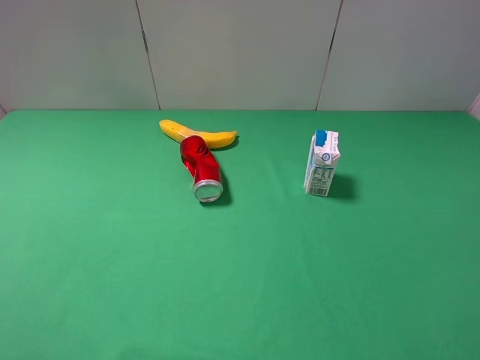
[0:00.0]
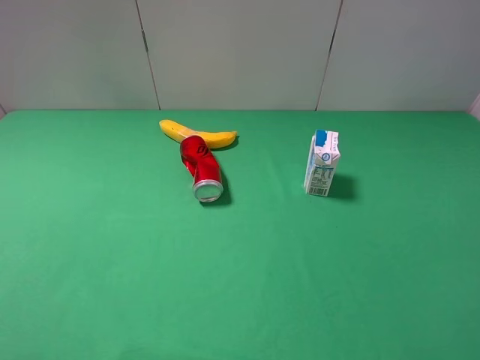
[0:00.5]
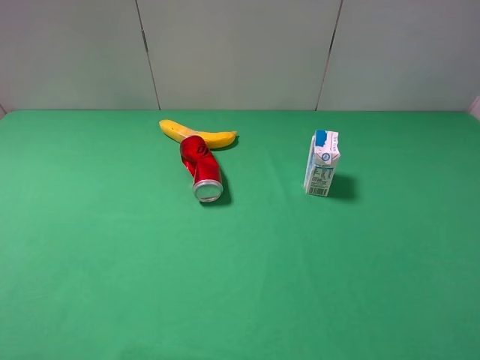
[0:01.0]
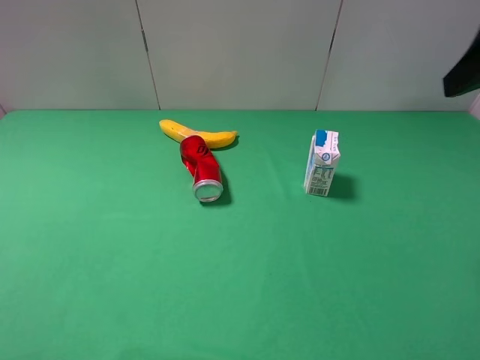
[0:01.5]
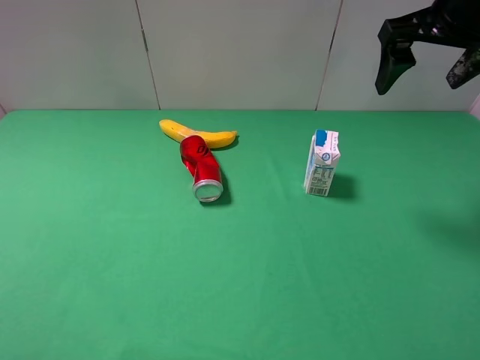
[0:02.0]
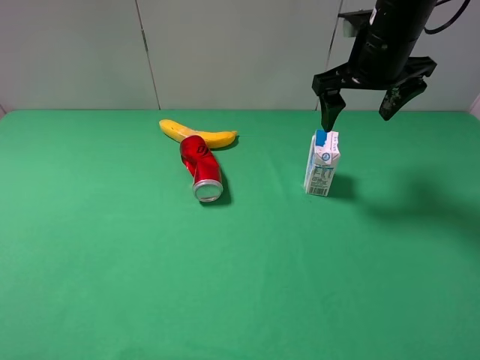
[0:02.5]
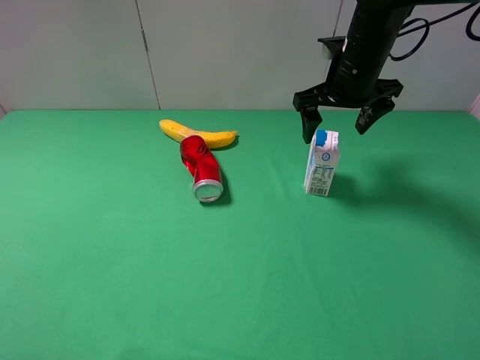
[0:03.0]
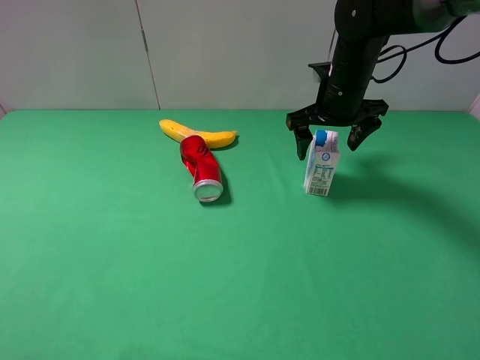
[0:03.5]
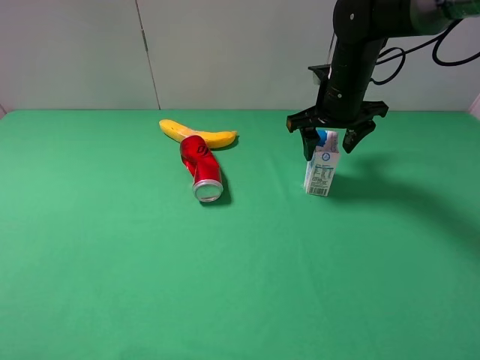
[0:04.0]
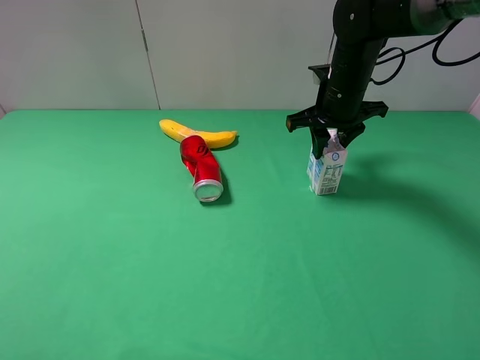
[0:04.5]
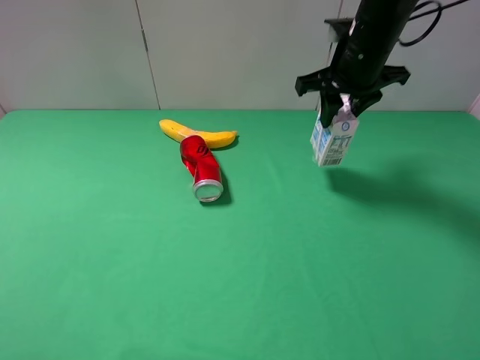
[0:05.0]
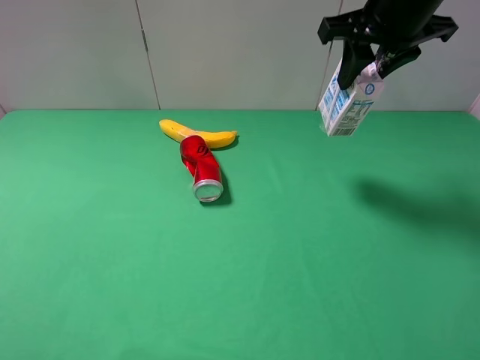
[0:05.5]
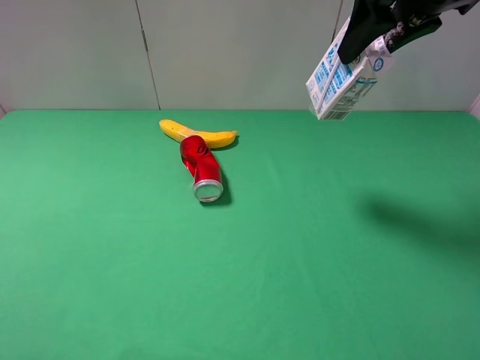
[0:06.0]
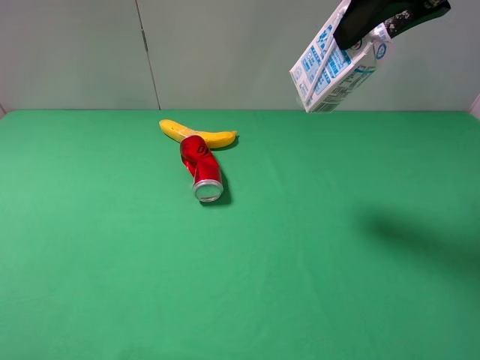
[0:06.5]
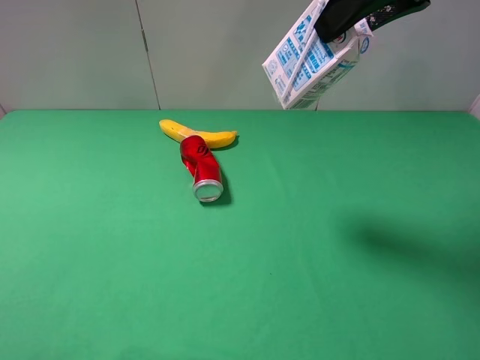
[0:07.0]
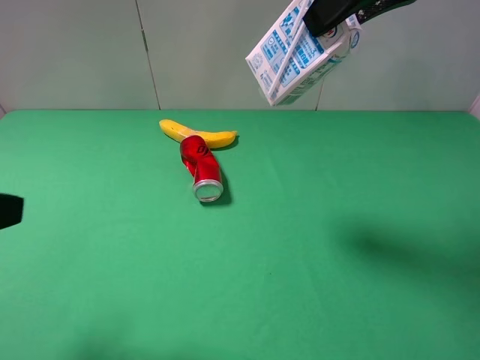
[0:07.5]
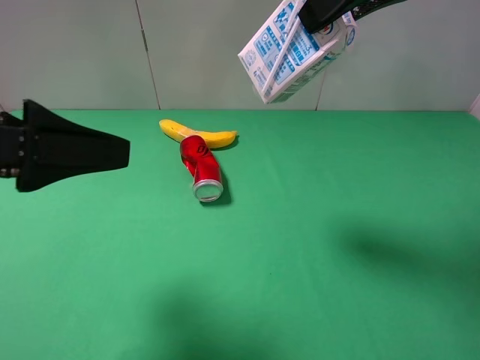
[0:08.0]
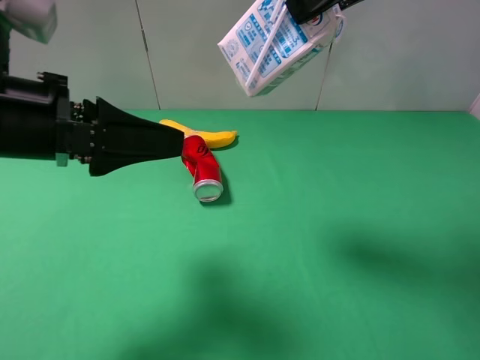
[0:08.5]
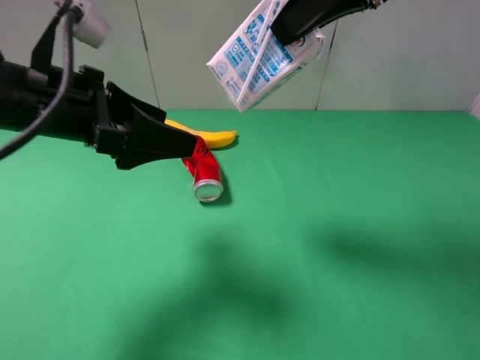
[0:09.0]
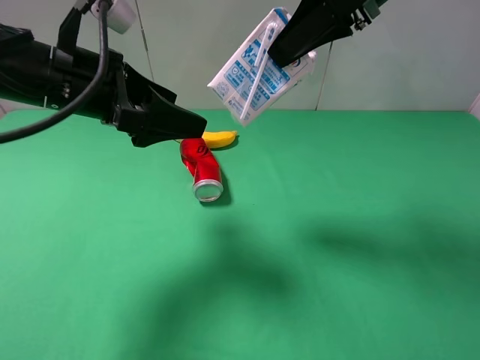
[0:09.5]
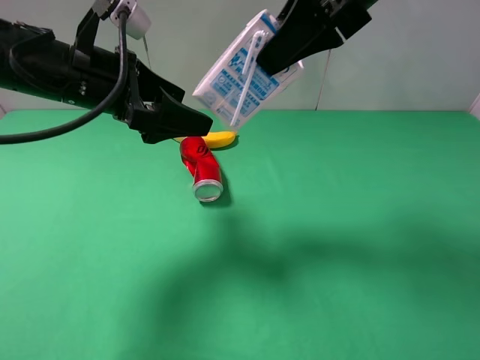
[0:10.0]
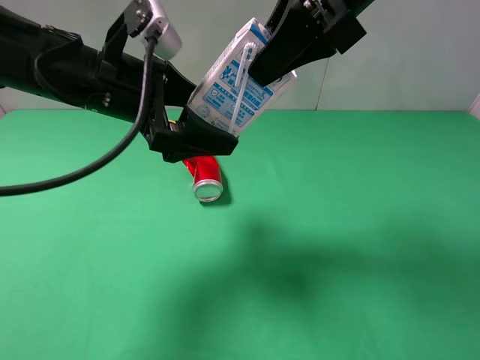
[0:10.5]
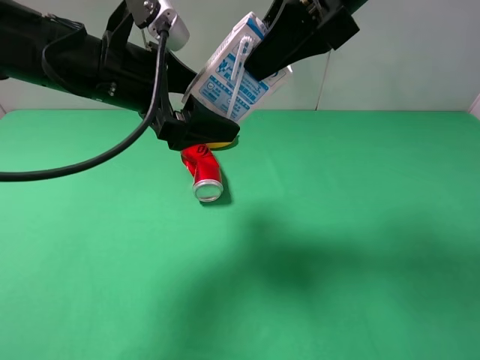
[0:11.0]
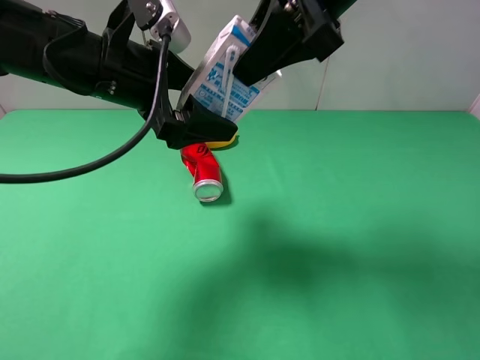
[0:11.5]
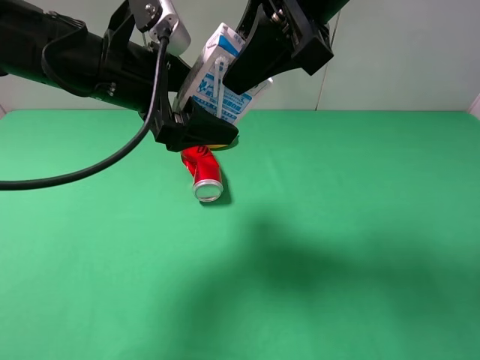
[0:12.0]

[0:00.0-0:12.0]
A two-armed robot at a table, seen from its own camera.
Task of the whole recording: use the right gripper to pick up the item and transfer it from the right gripper to the left gripper.
0:00.0 to 0:02.0: The right gripper shifts some 30 cm forward.
0:02.0 to 0:04.0: The right gripper shifts roughly 20 cm downward, forward and to the left, and closes up.
0:04.0 to 0:06.0: The right gripper is displaced upward and backward by roughly 20 cm, and closes.
0:06.0 to 0:08.0: The left gripper shifts about 15 cm forward and to the right.
0:08.0 to 0:10.0: The left gripper travels forward by roughly 15 cm. Meanwhile the right gripper moves roughly 5 cm.

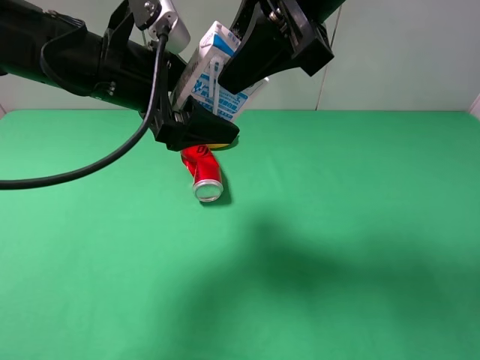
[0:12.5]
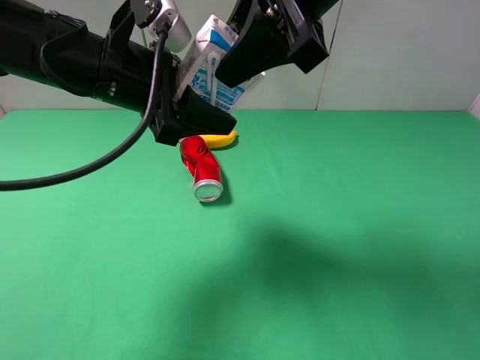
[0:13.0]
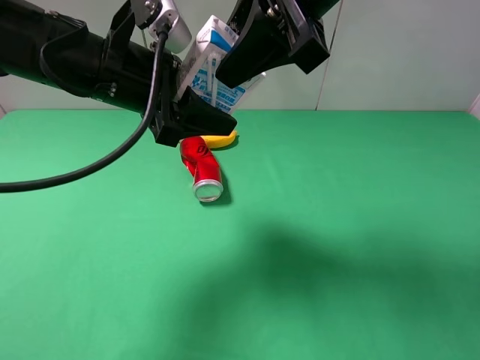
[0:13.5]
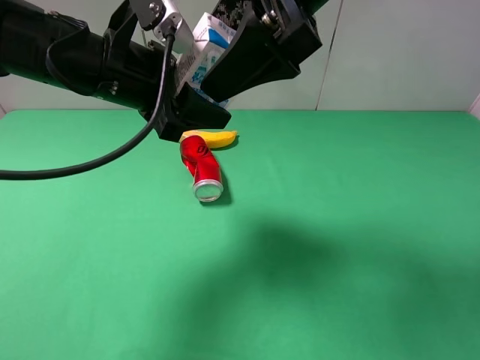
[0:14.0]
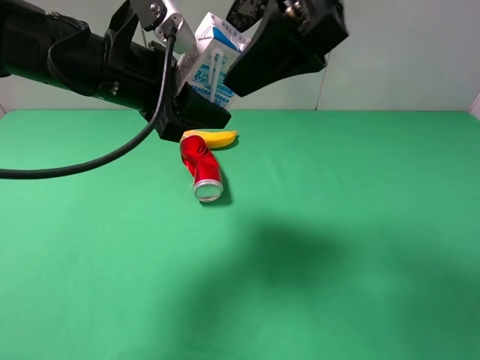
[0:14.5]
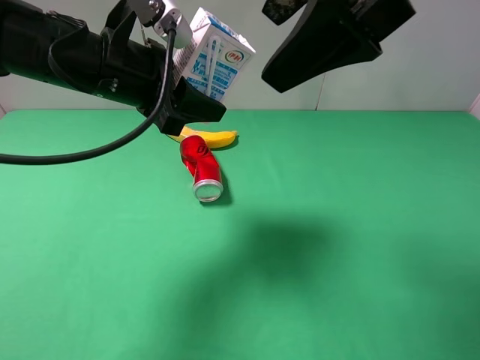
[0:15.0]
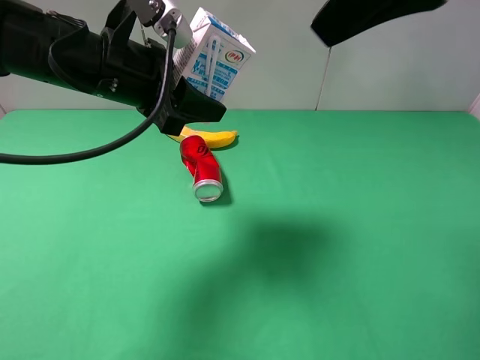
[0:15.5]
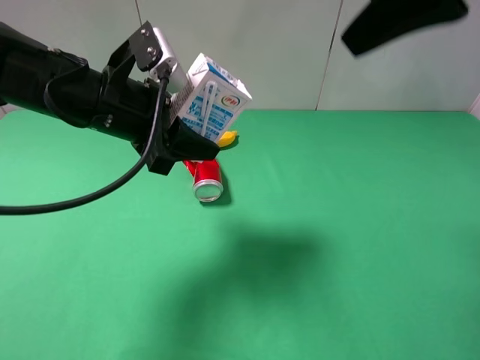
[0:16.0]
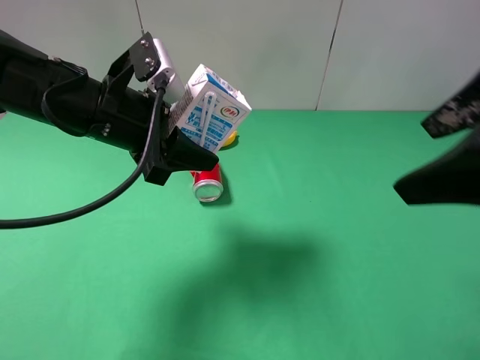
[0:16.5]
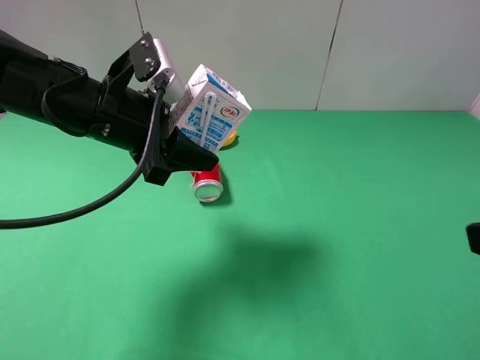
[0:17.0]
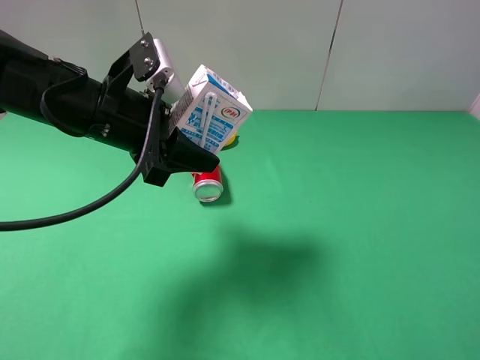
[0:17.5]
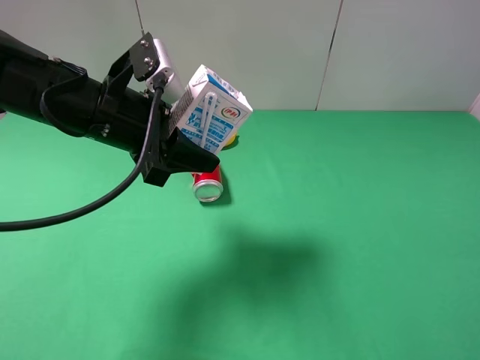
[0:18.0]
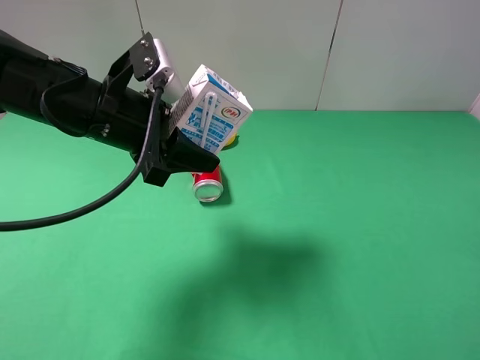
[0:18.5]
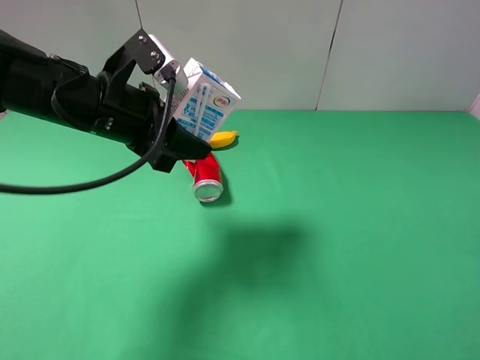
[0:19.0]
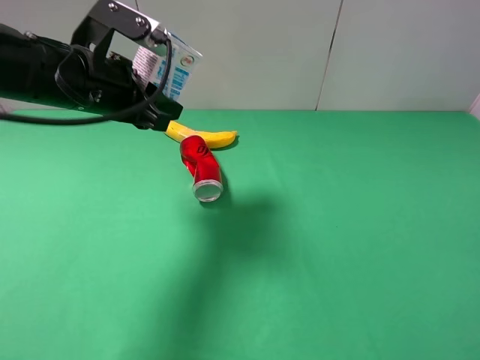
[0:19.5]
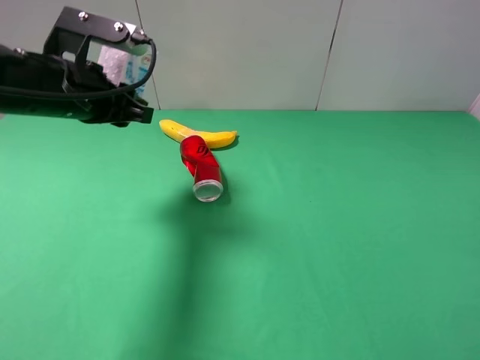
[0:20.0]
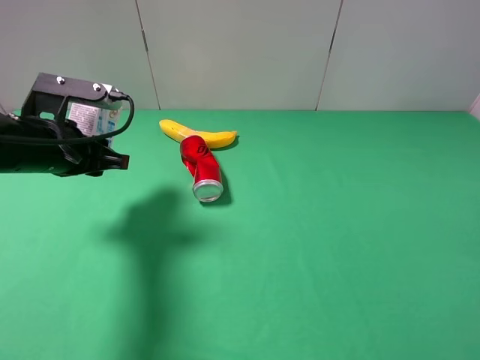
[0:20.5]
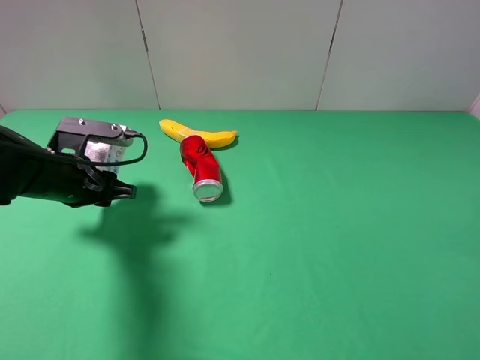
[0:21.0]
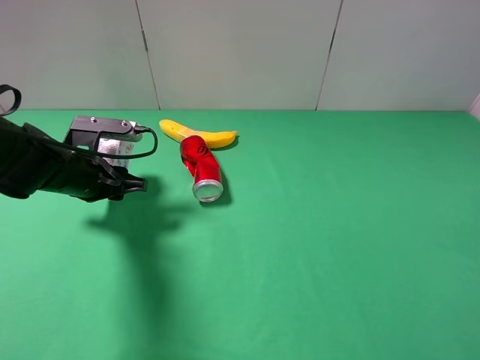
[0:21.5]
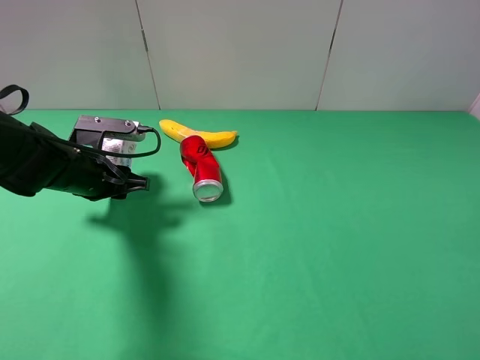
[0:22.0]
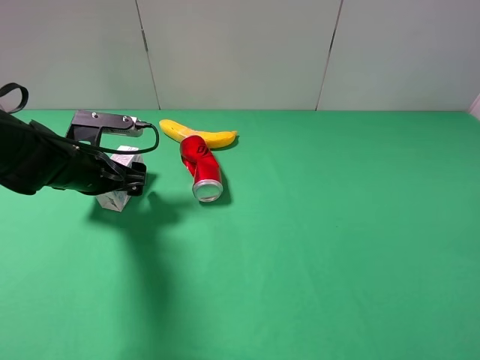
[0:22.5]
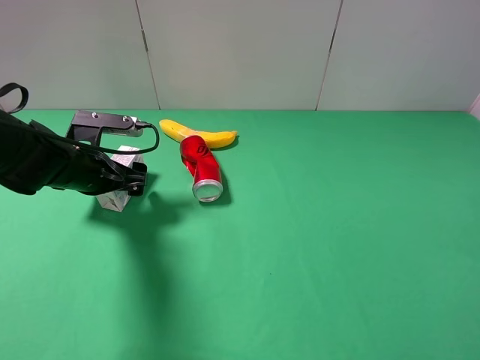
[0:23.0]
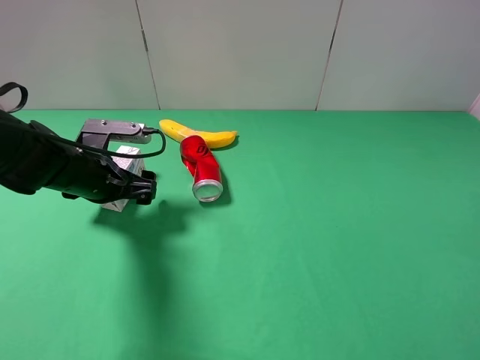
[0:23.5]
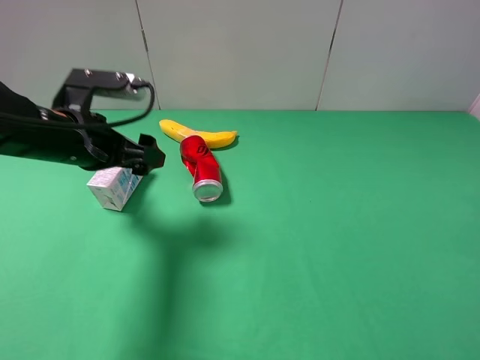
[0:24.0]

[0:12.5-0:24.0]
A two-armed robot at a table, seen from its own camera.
Task of the whole recording: use the right gripper to pick up the item and transfer it from the right gripper to the left gripper.
Step, 0:12.5 to 0:14.5: Pass the milk to the left gripper.
Step, 0:15.0 to 0:22.5: The left gripper places milk on the left side of the table.
0:12.5 to 0:14.5: The right gripper opens up; the left gripper closes up.
0:14.5 to 0:16.5: The right gripper moves to the right and backward, about 15 cm.
0:16.5 to 0:18.5: The right gripper travels backward, to the right and downward by approximately 15 cm.
0:18.5 to 0:20.0: The left gripper moves to the left, some 5 cm.
0:20.0 to 0:22.0: The left gripper shifts roughly 10 cm downward.
0:22.0 to 0:24.0: The left gripper travels upward by approximately 10 cm, and opens.

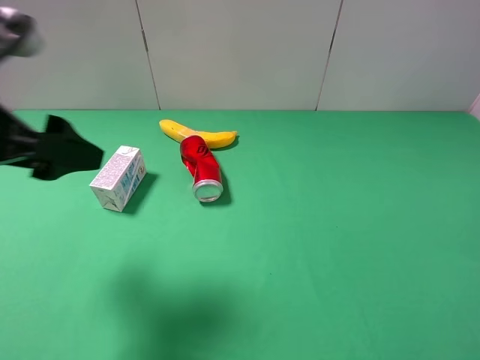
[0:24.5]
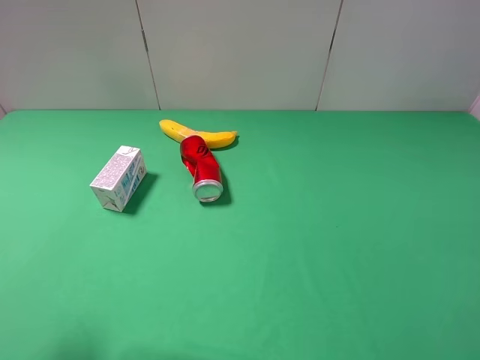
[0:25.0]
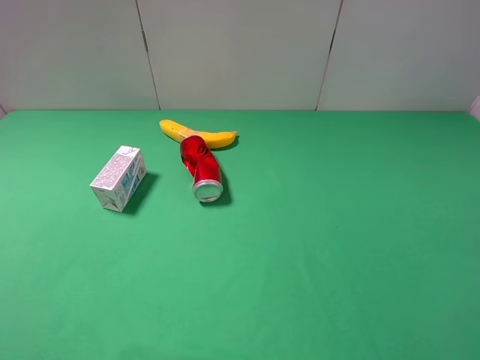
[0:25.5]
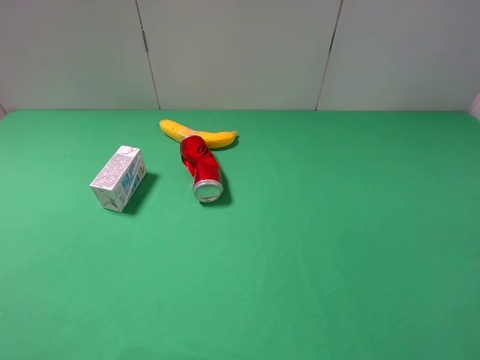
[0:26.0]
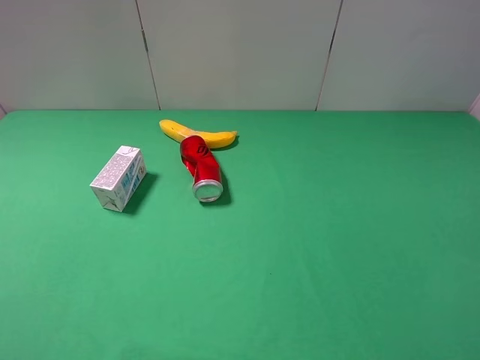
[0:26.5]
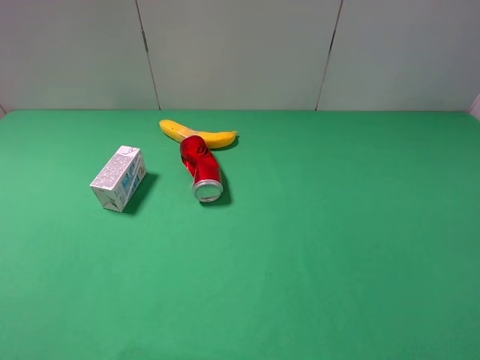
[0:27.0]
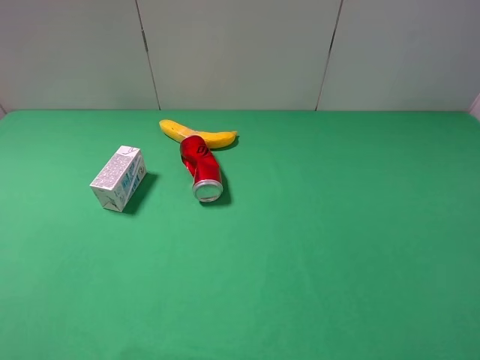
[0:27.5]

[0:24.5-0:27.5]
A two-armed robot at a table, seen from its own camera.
Task of the whole recording: use the right gripper to pick up the item and transfer it from the right gripper to the left gripper.
0:24.5 to 0:26.0: The left gripper moves backward and to the left, about 15 cm.
